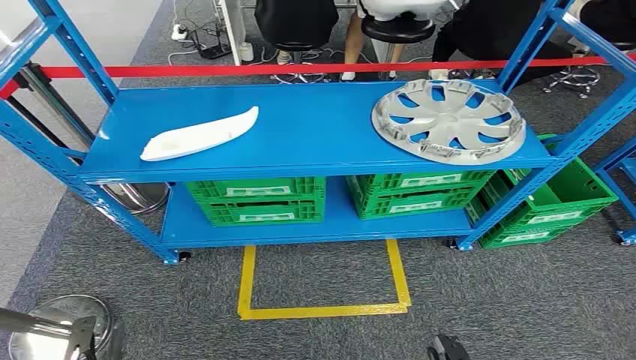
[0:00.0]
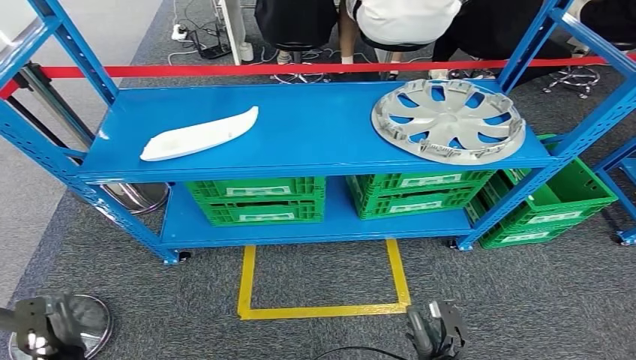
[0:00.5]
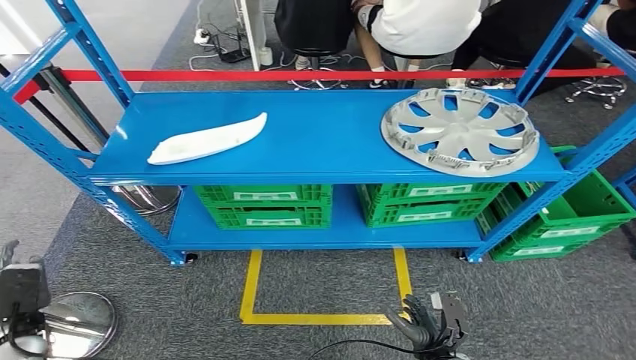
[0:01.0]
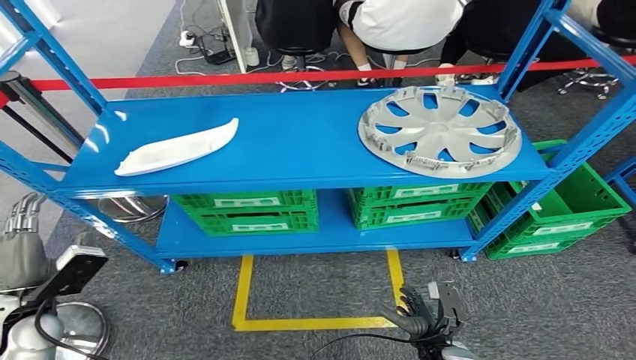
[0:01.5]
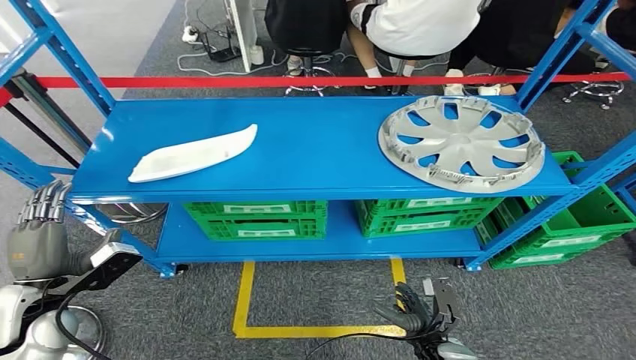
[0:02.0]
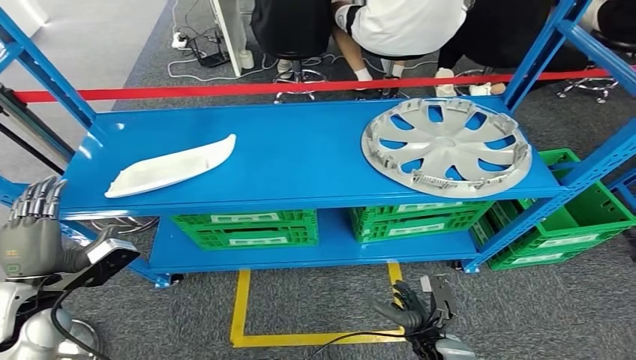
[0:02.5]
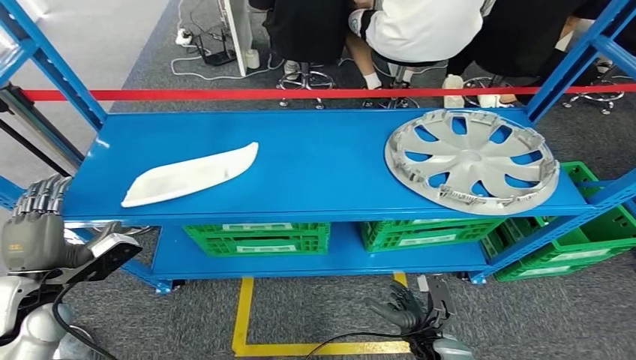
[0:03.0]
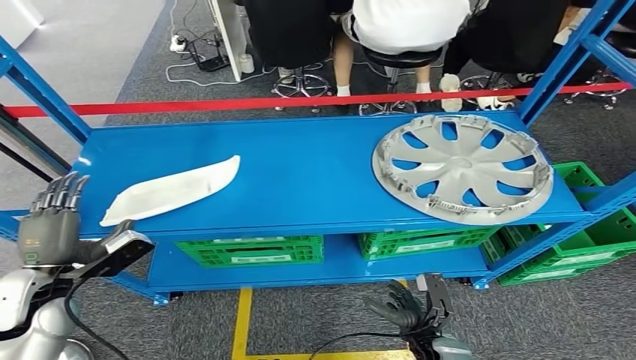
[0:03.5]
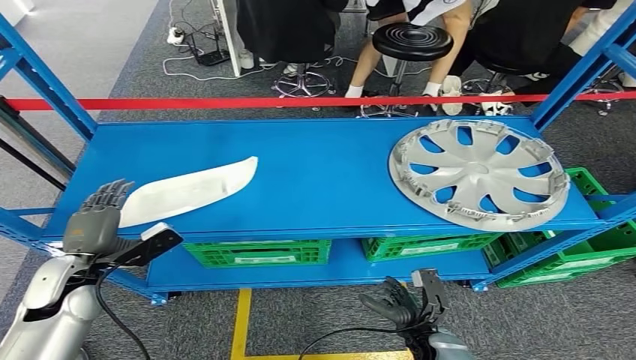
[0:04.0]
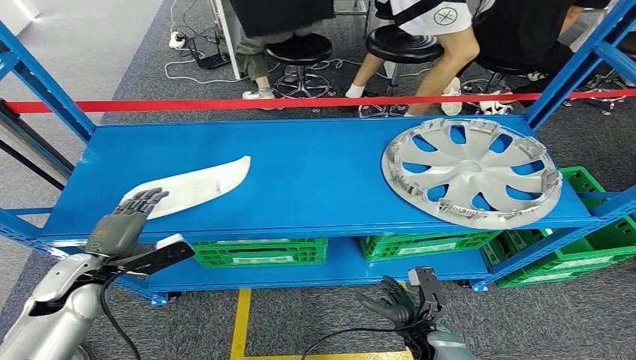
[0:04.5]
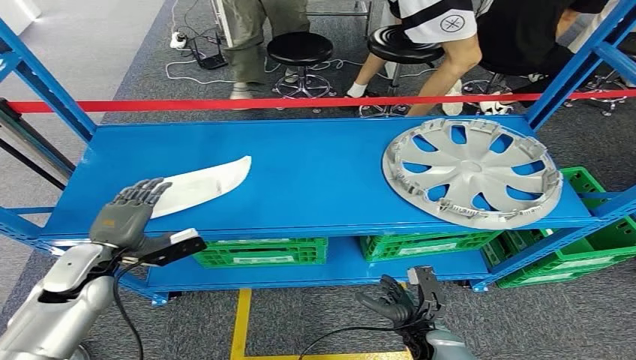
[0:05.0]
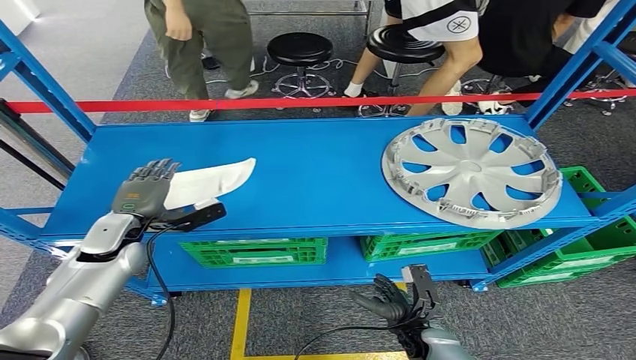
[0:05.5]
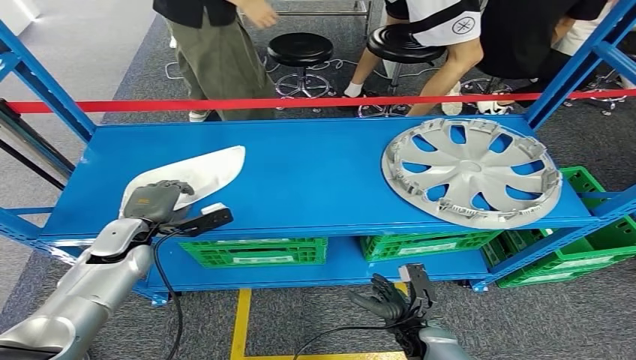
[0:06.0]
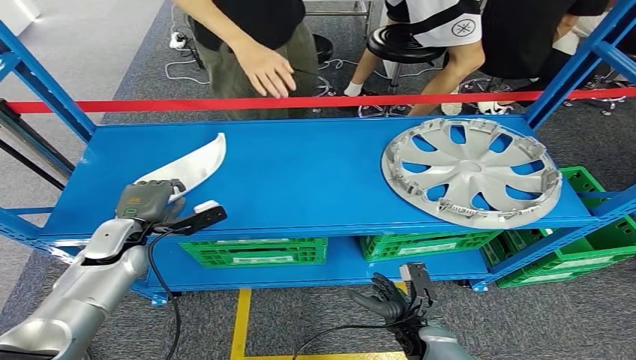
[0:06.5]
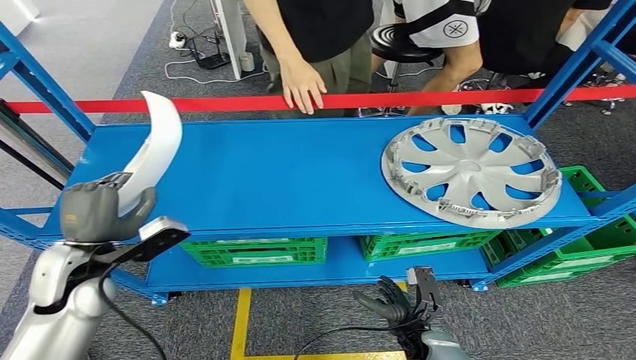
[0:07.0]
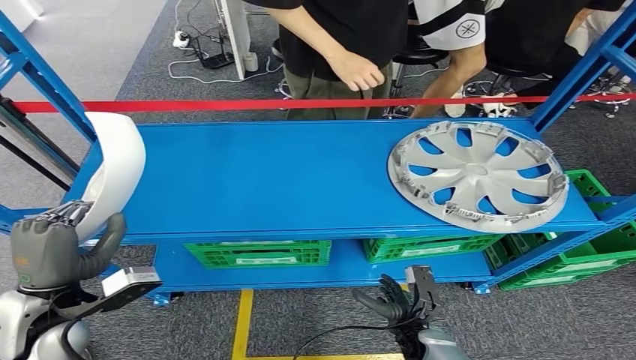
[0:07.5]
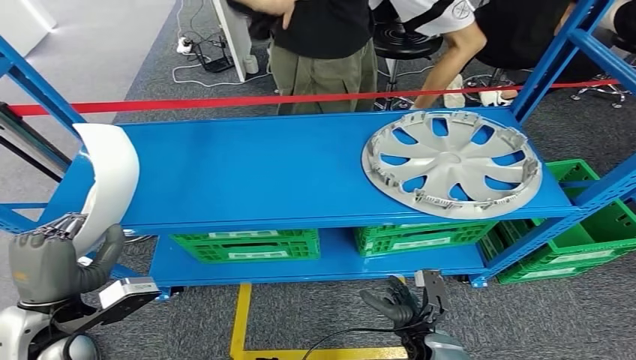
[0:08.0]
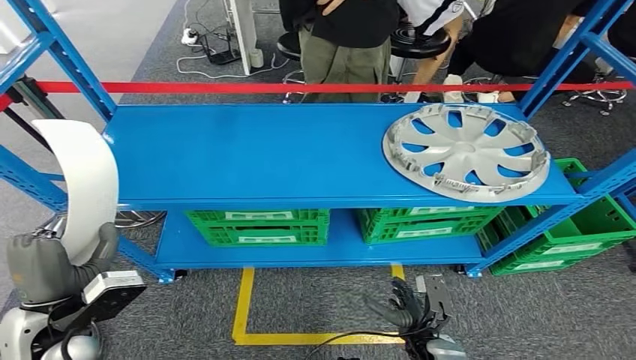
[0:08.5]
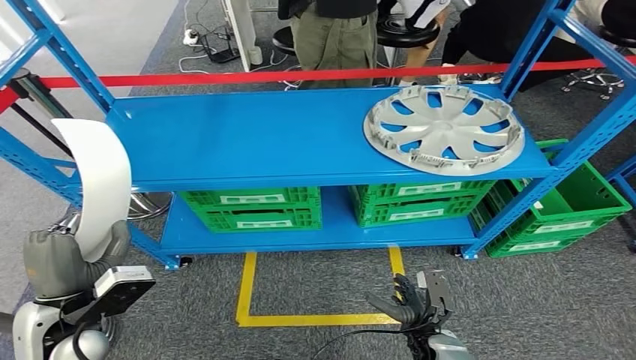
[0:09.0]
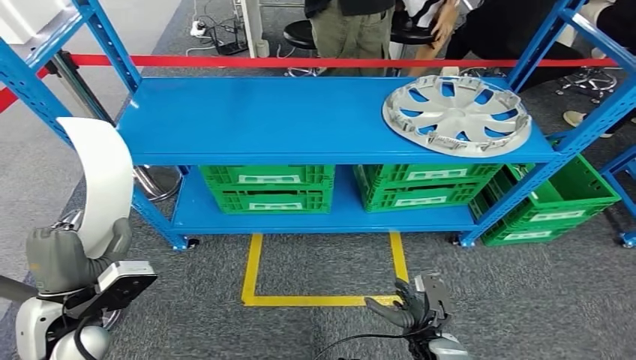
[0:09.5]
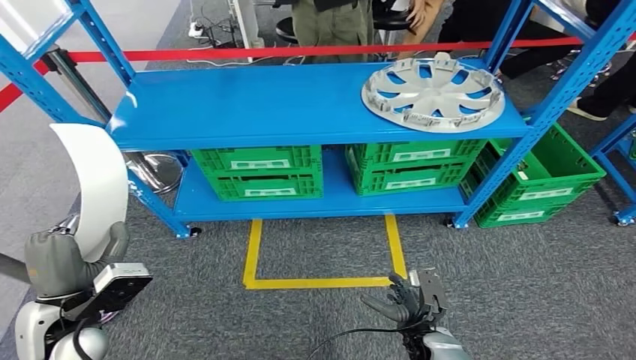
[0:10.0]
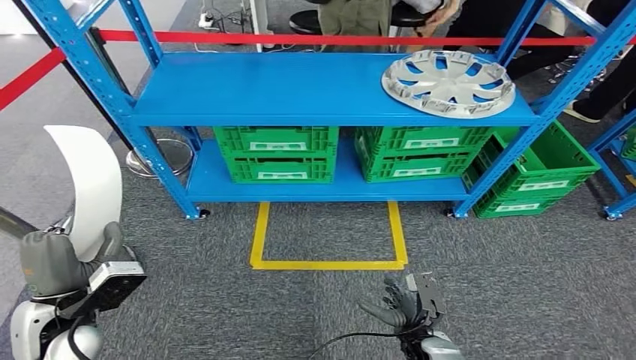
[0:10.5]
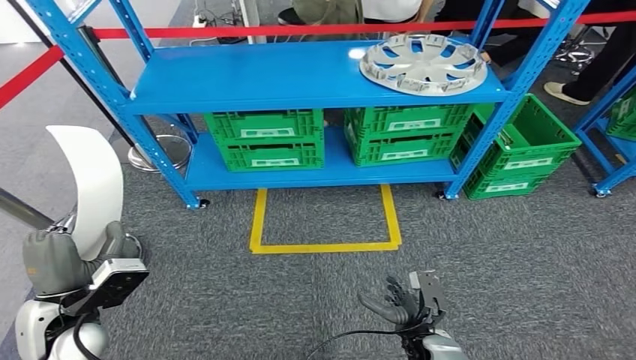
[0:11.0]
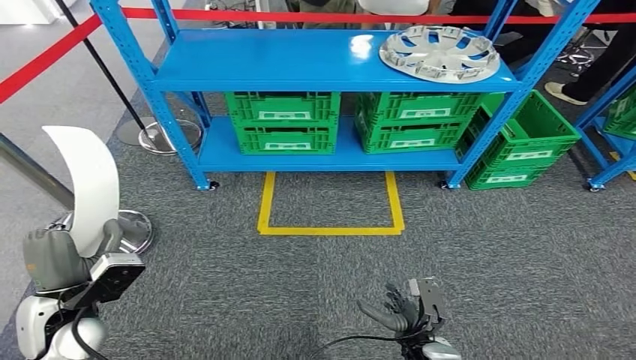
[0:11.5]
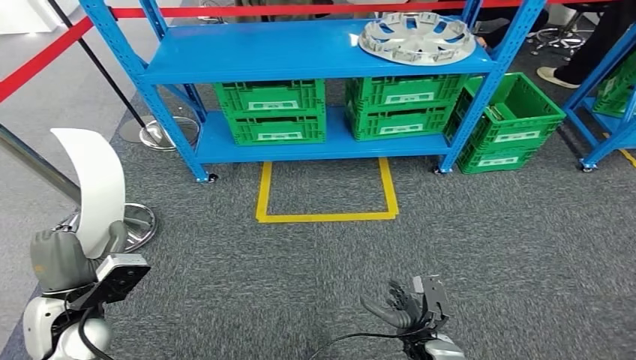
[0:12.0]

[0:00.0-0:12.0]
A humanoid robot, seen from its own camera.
Step, 0:00.0 to 0:08.0: Pick up the small component from the shelf.

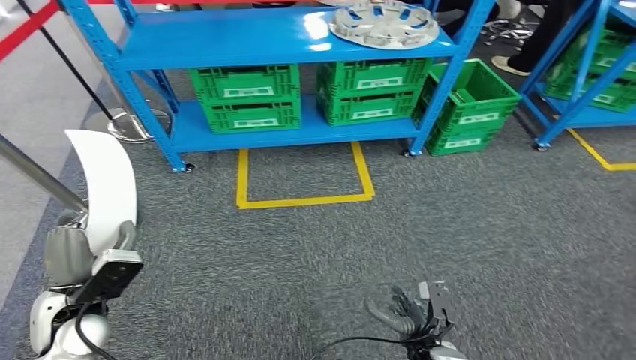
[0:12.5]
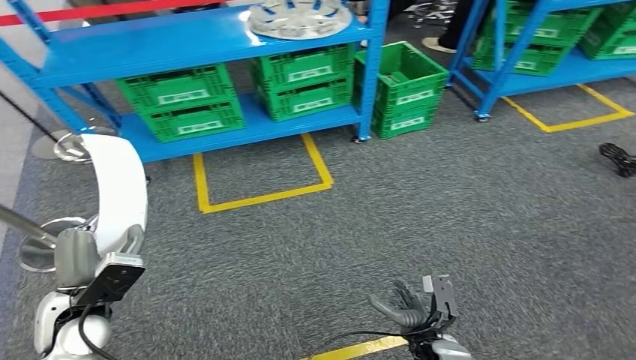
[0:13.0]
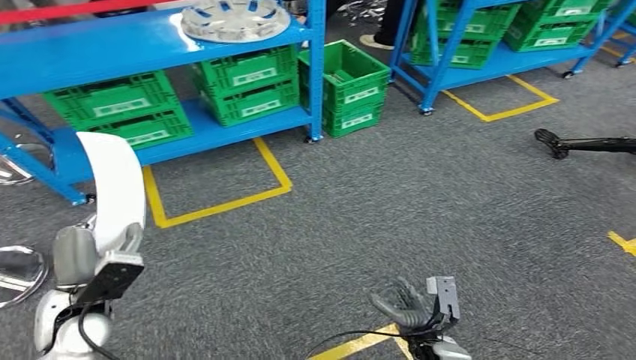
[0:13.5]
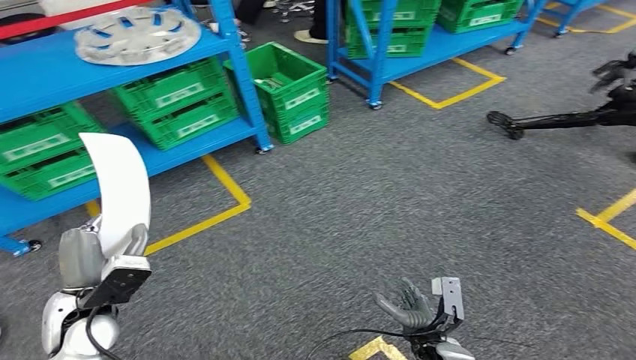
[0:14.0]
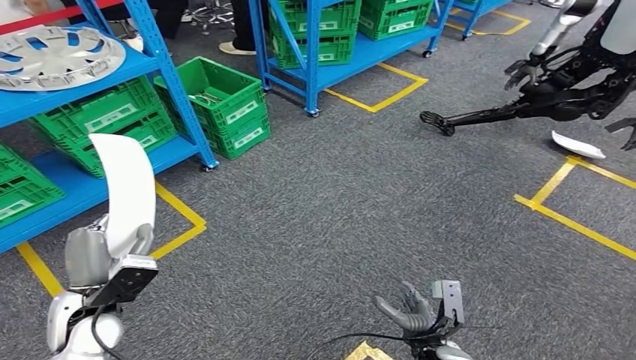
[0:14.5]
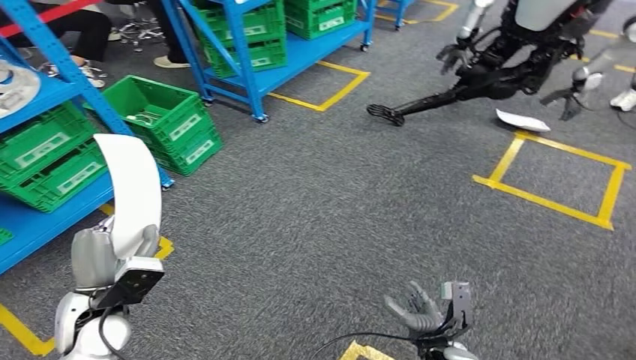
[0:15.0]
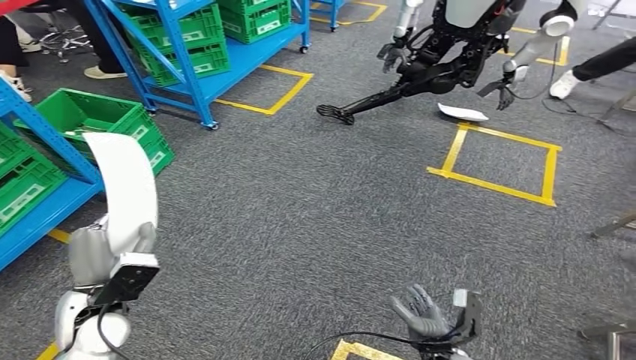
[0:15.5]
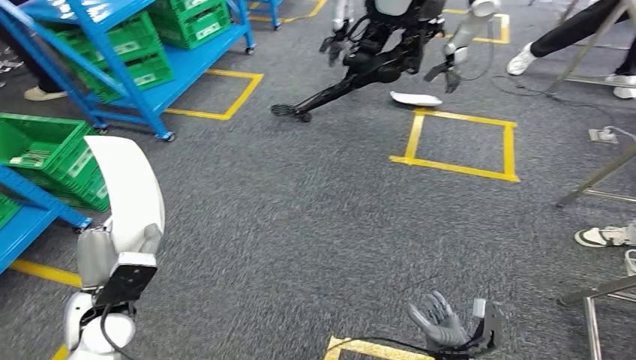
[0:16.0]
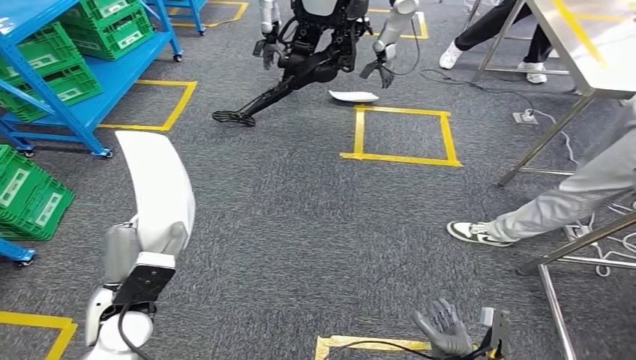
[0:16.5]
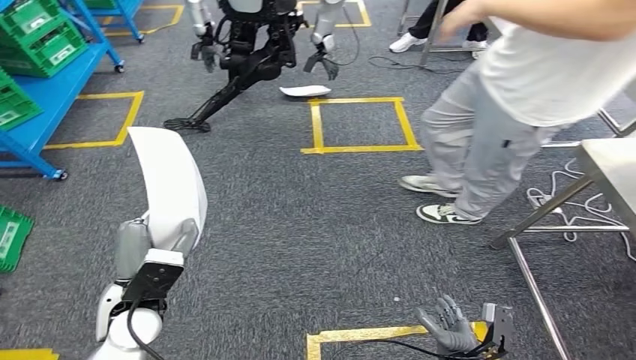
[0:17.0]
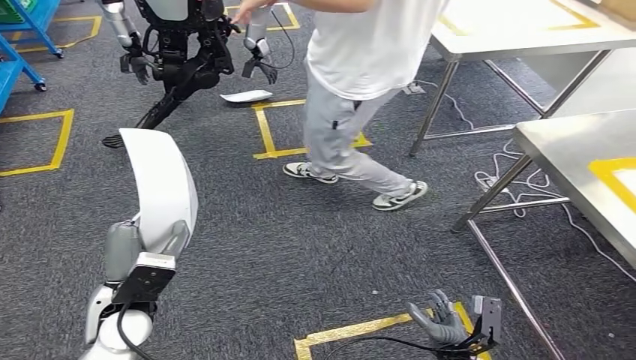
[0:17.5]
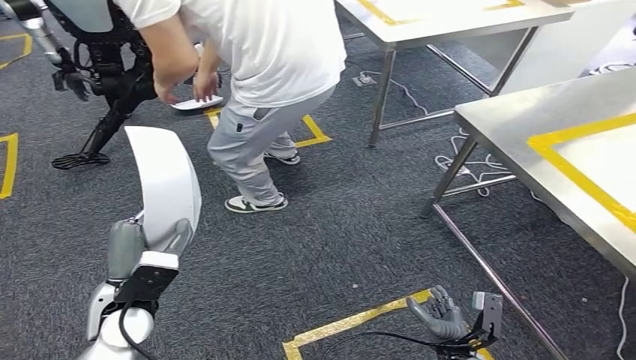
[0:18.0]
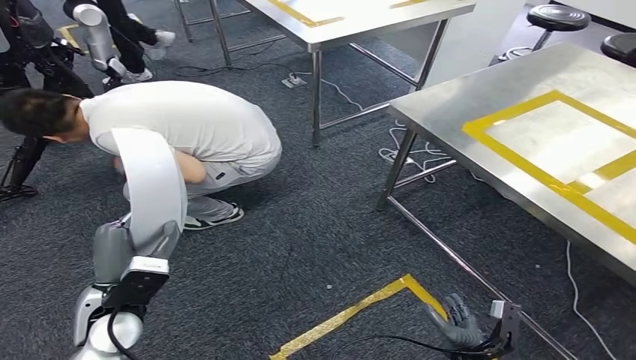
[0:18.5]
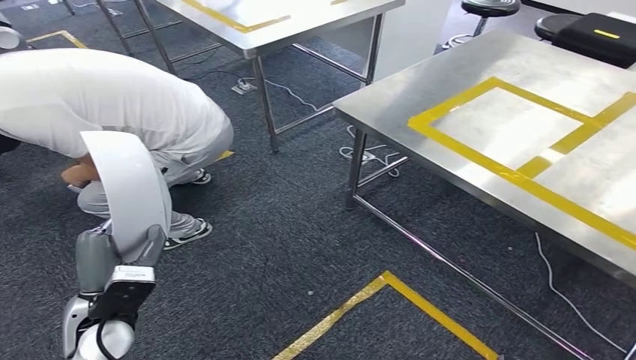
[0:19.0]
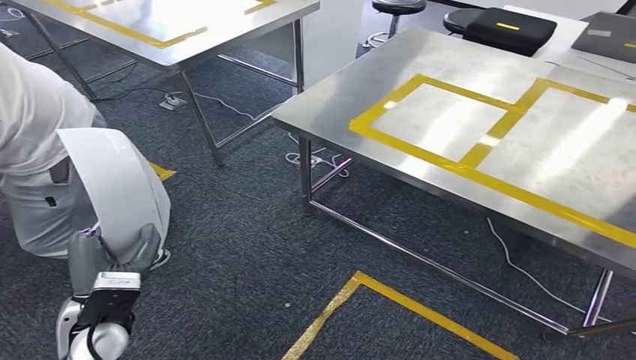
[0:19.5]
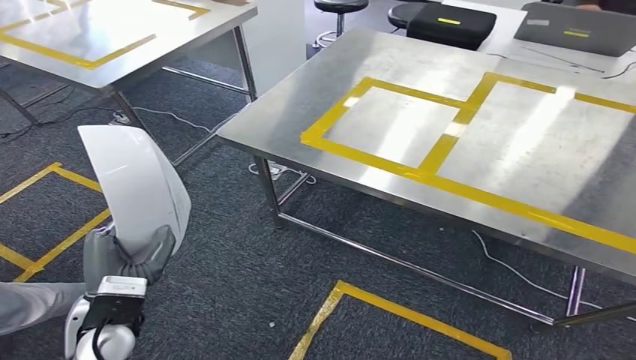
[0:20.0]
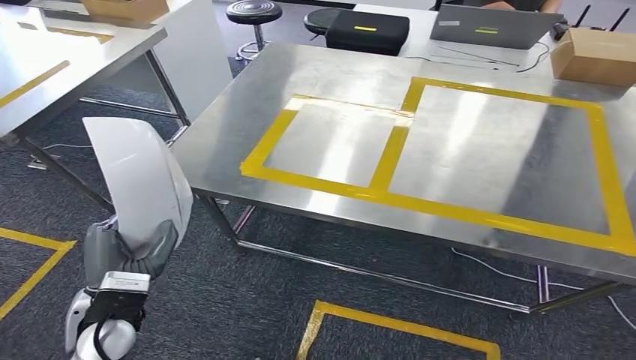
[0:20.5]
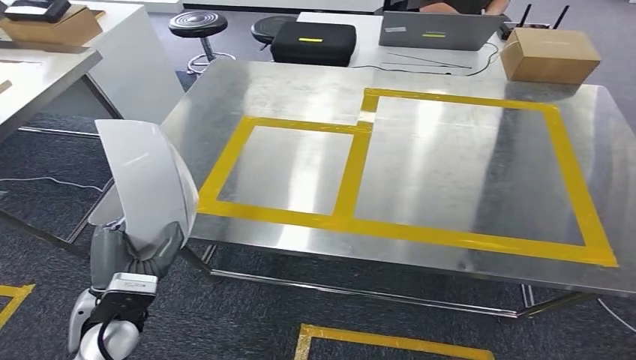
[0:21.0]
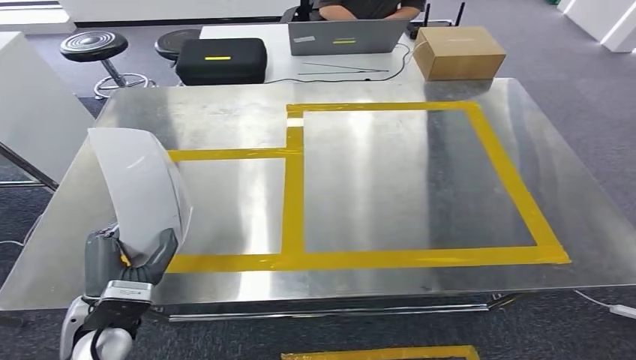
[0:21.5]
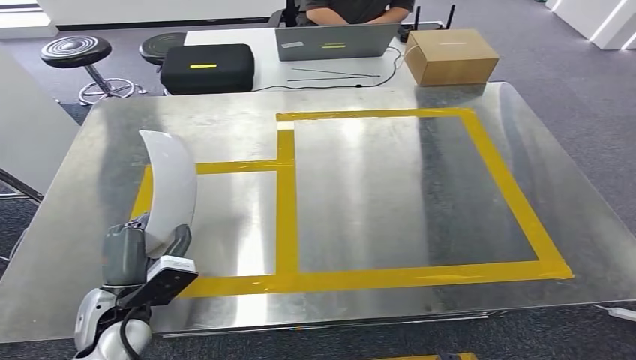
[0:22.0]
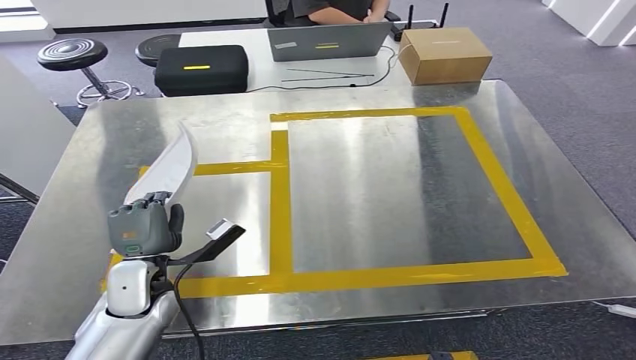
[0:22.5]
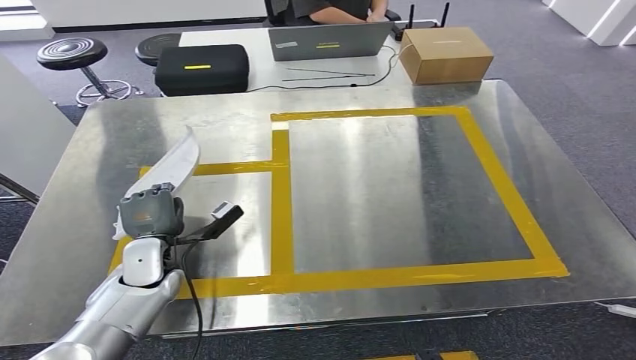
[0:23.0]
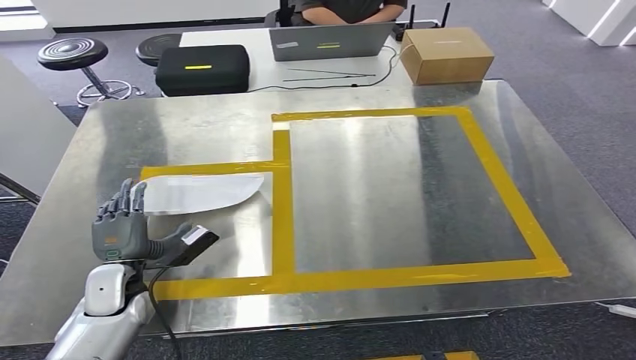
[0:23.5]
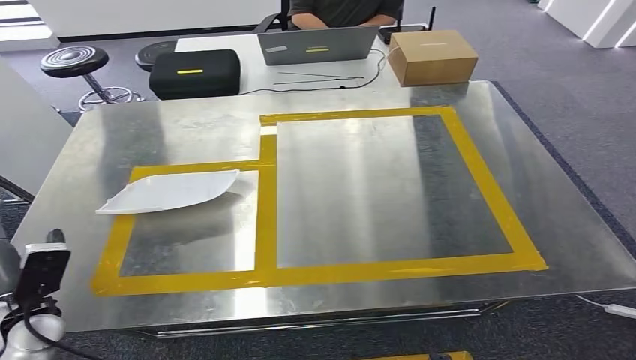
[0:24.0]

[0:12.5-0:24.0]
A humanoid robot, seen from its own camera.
Step, 0:12.5 to 0:21.0: Move the small component to the workbench.
